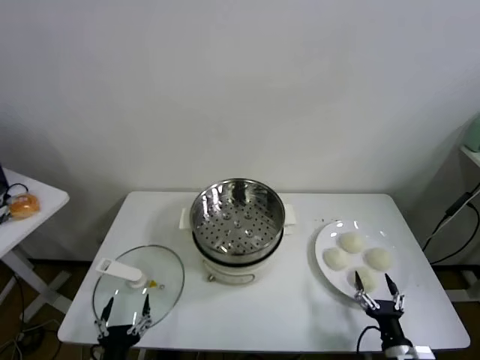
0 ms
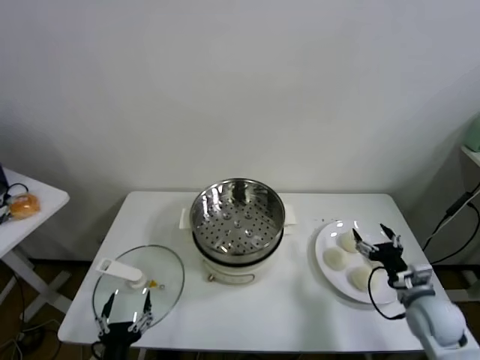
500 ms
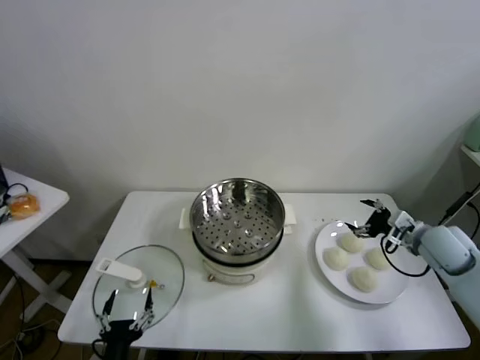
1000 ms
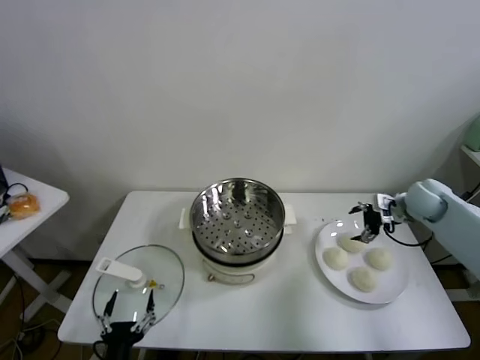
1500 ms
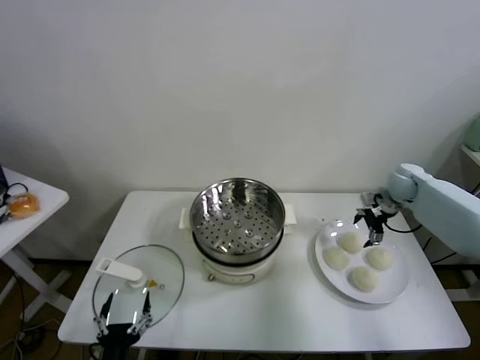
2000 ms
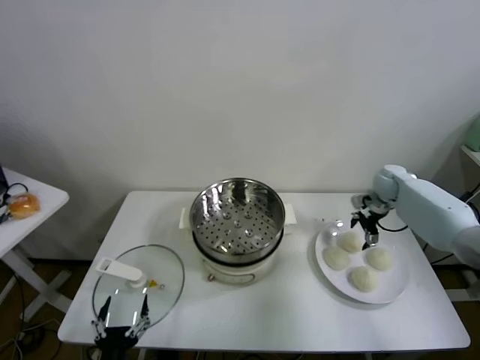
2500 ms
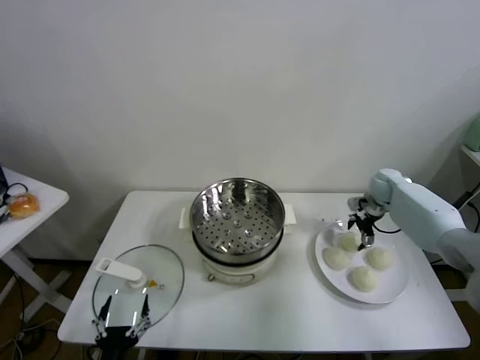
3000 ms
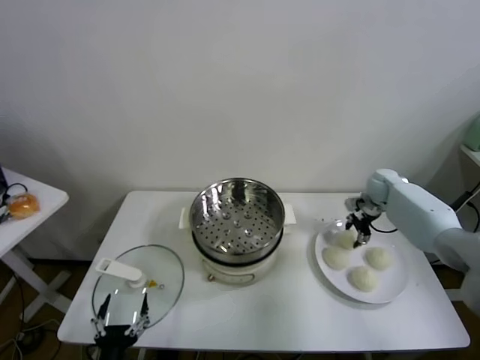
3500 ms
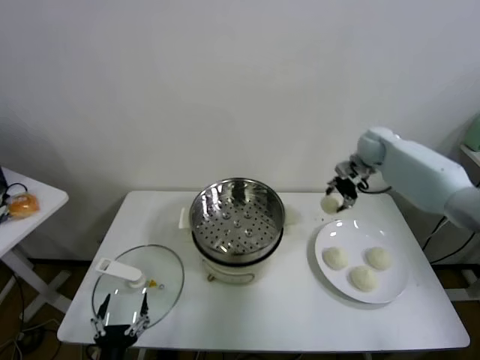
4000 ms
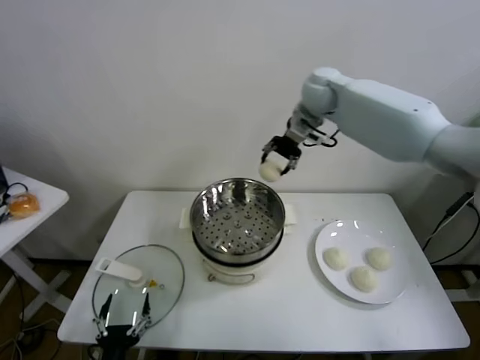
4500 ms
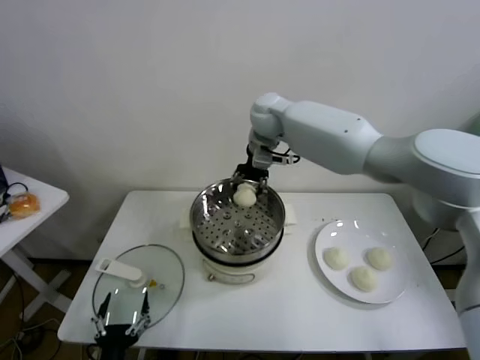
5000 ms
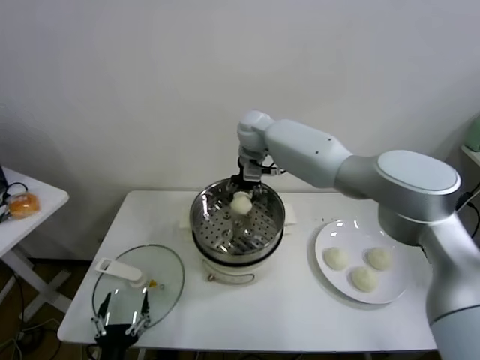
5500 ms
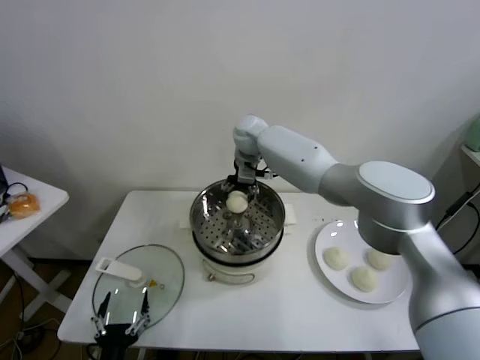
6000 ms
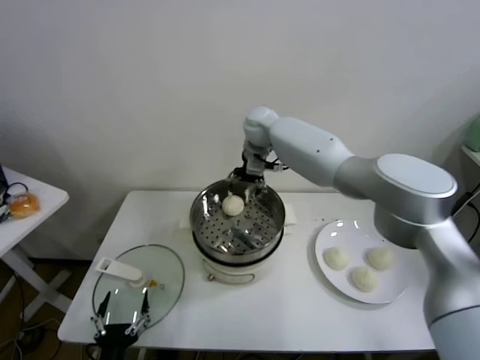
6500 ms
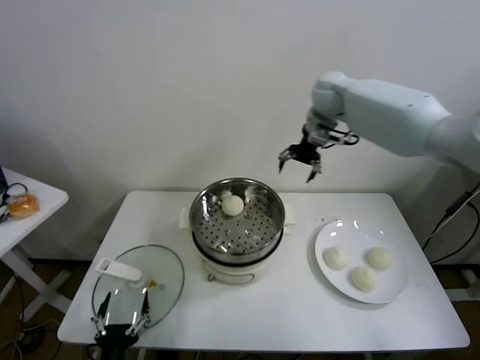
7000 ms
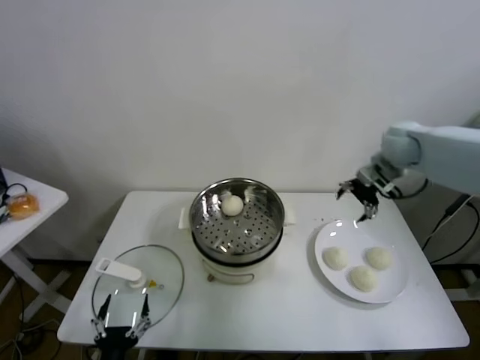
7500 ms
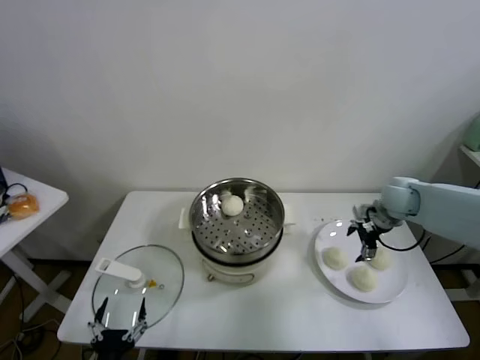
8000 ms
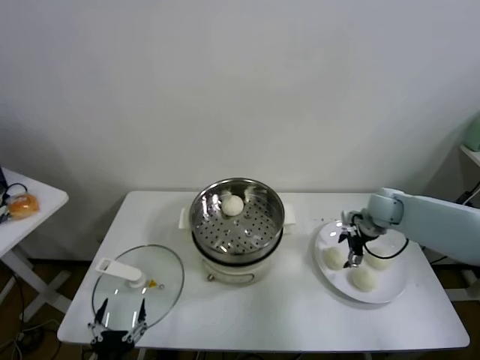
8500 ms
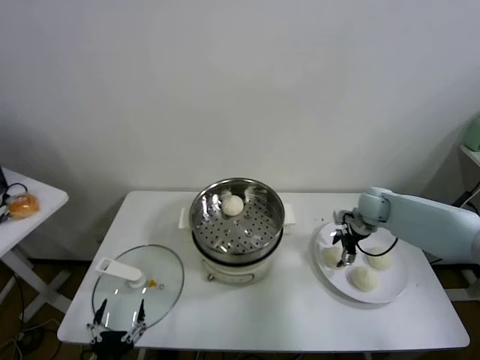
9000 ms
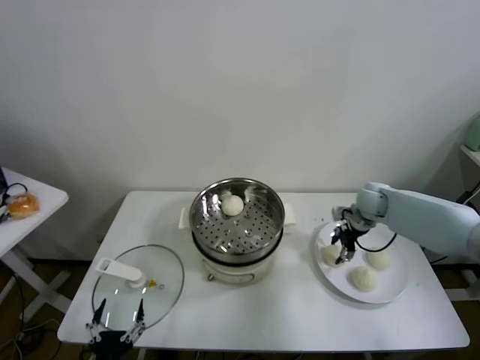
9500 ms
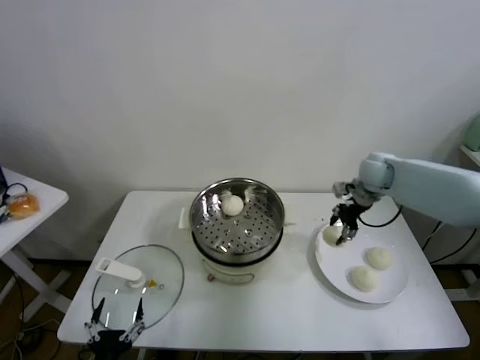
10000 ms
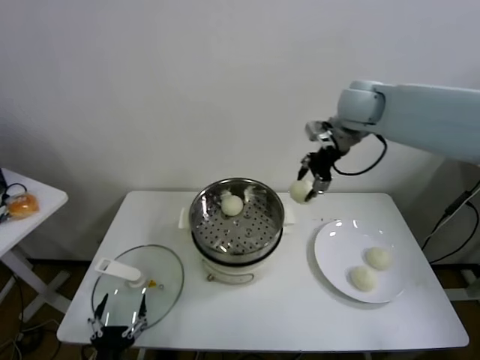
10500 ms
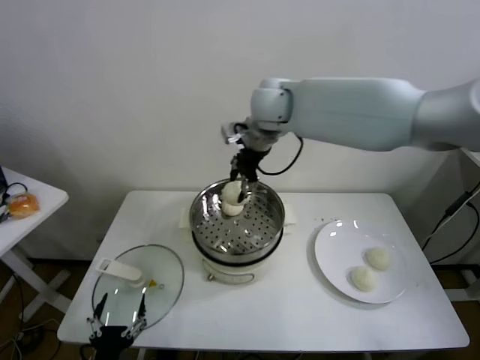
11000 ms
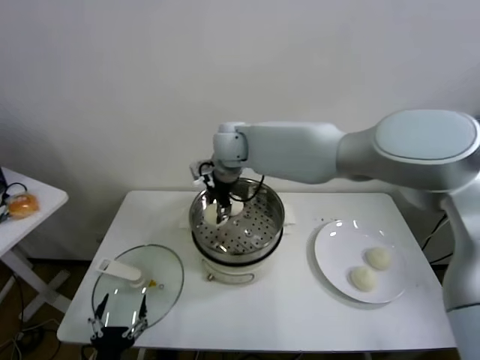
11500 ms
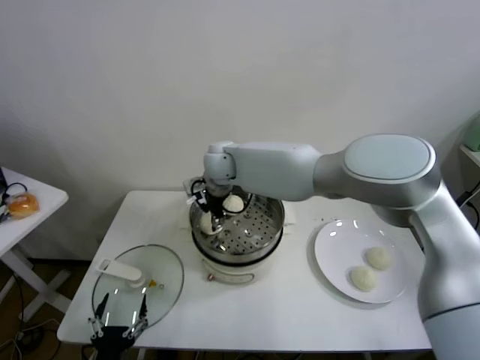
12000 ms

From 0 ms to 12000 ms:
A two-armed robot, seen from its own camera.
Task of the whole recording: take steamed baozi put them in steamer.
Step, from 0 ms to 3000 ms: Grasp the baozi in the plate with right gripper.
Step, from 3500 ms to 6000 ms: Place the baozi on the steamer with right gripper.
Step, from 6500 ms to 9000 ms: Grasp the baozi in the plate with right gripper.
From 2000 ms to 4000 ms: The right gripper moves upward, to the left and forward, roughly 15 cm, and closes up.
From 4000 ms to 6000 ms: The right gripper heads to the left, covering approximately 30 cm, and opens.
From 6000 ms to 8000 ms: The right gripper is displaced to the right by roughly 35 cm.
From 8000 ms to 10000 ms: The right gripper is displaced forward and upward by roughly 10 cm, and closes its fingers.
From 10000 ms to 12000 ms: The right gripper is displaced to the left by some 40 cm.

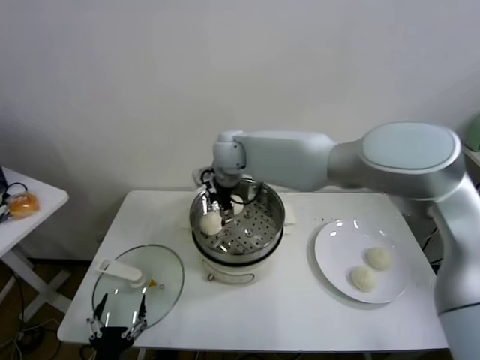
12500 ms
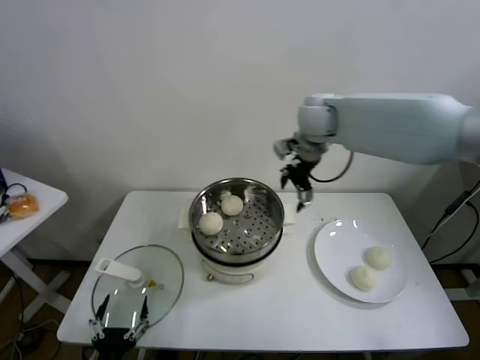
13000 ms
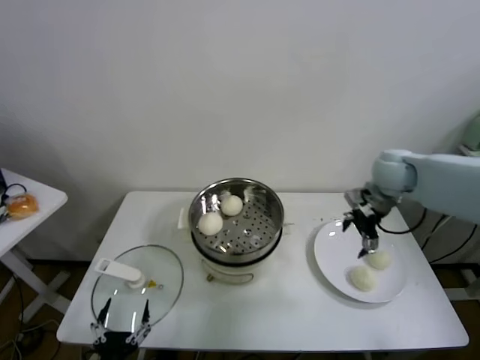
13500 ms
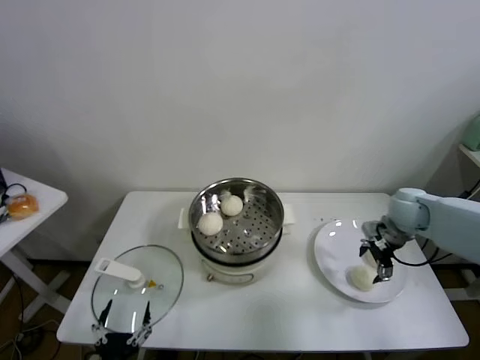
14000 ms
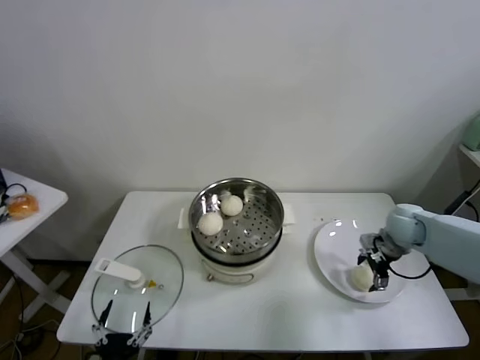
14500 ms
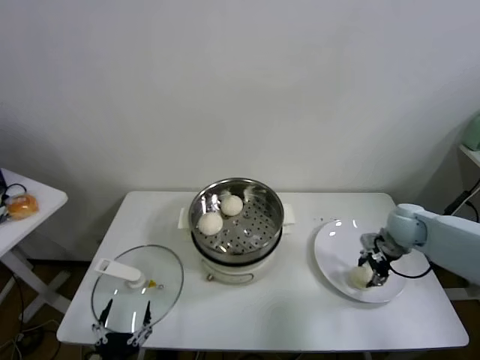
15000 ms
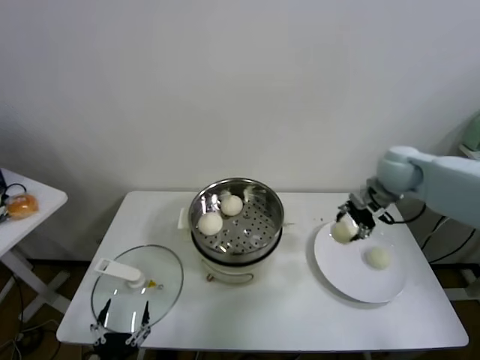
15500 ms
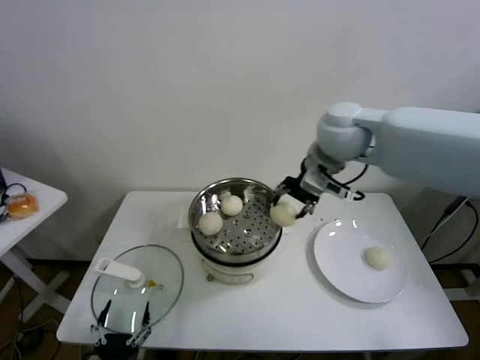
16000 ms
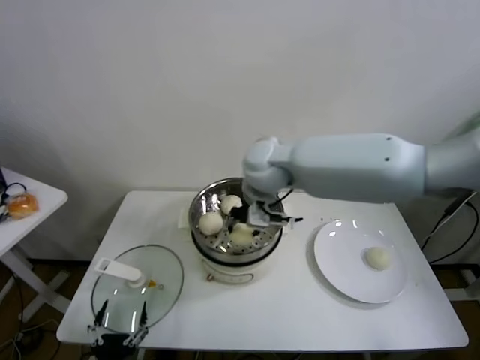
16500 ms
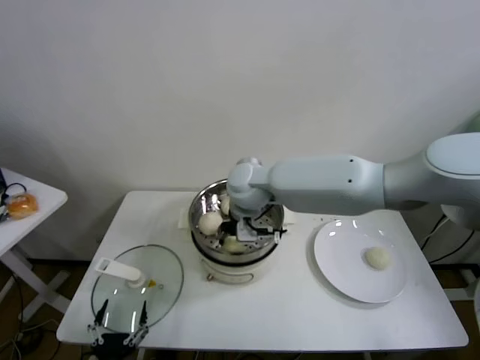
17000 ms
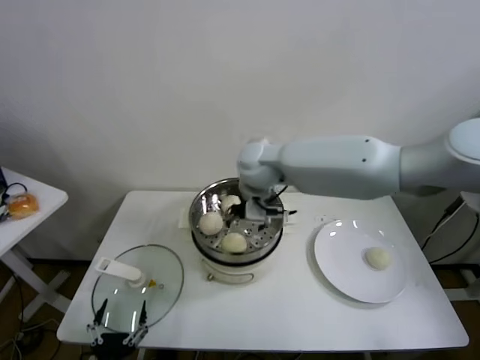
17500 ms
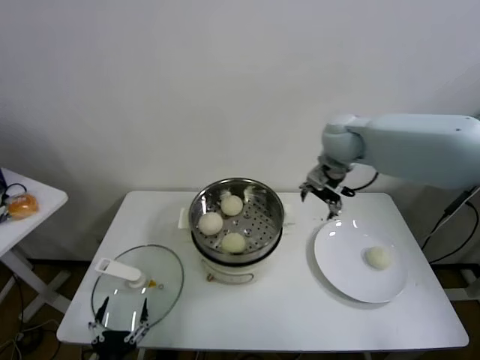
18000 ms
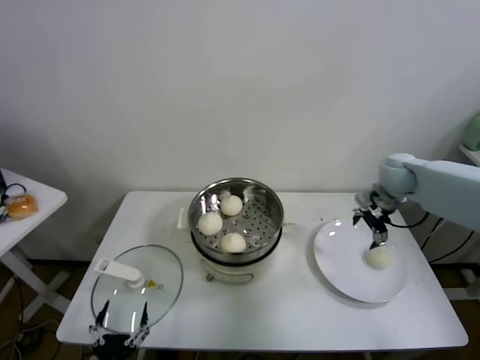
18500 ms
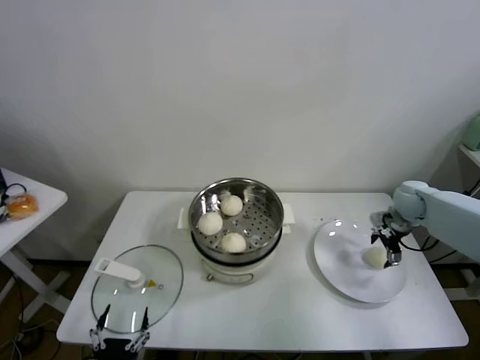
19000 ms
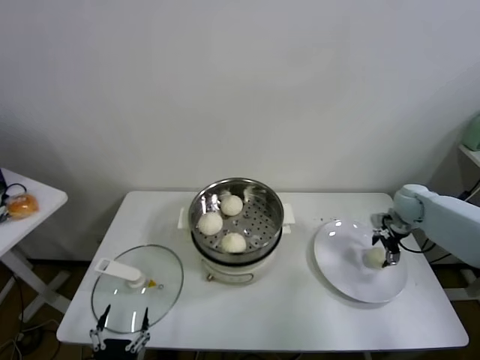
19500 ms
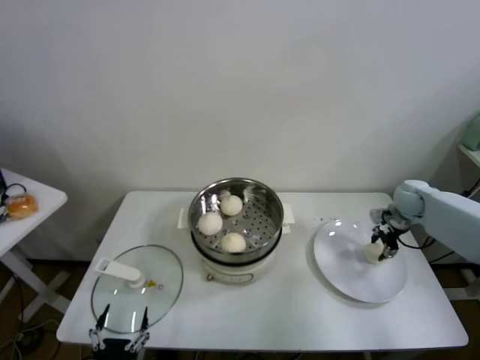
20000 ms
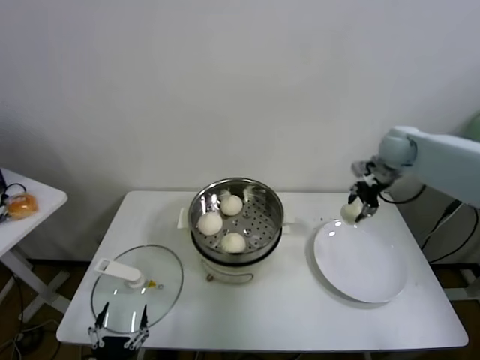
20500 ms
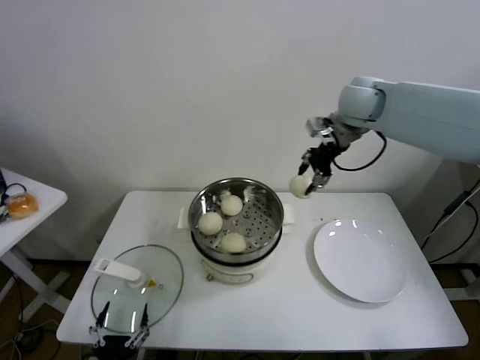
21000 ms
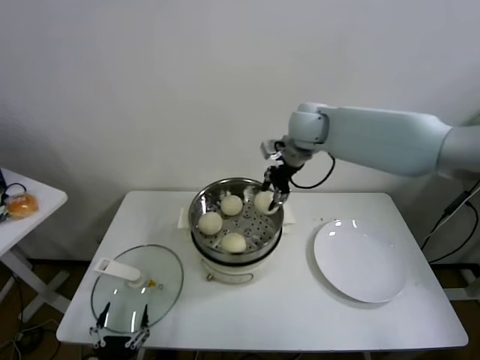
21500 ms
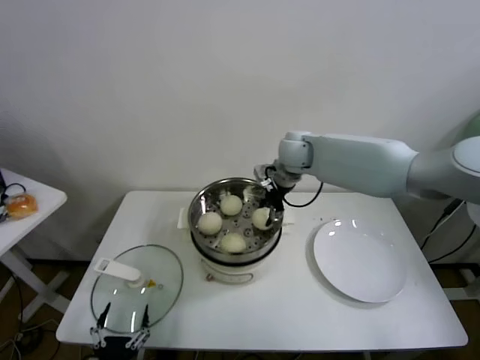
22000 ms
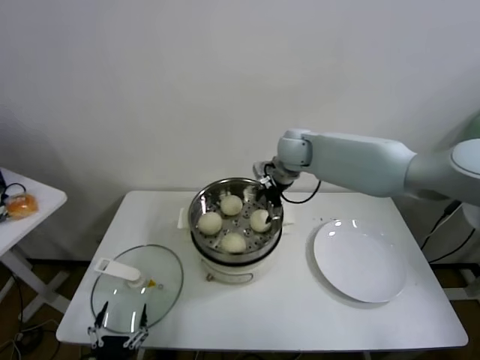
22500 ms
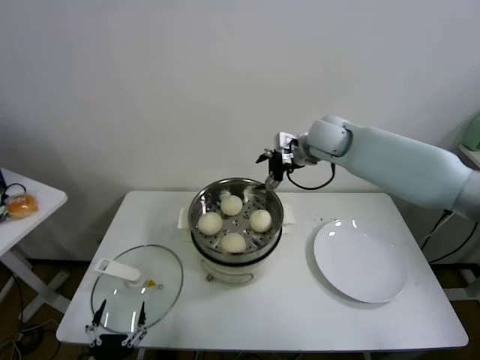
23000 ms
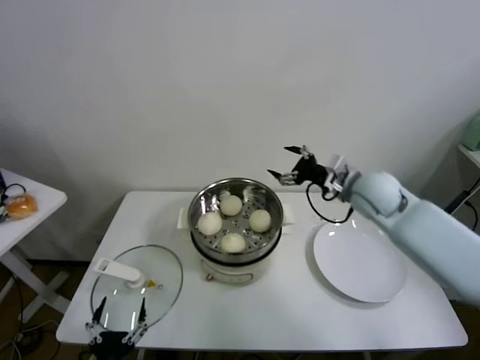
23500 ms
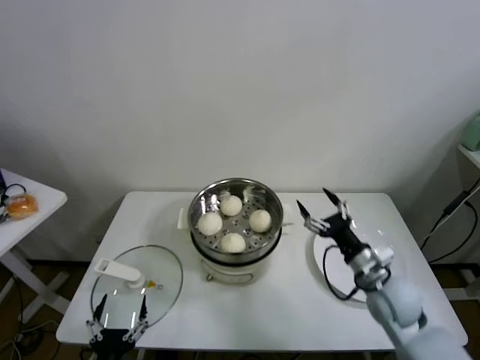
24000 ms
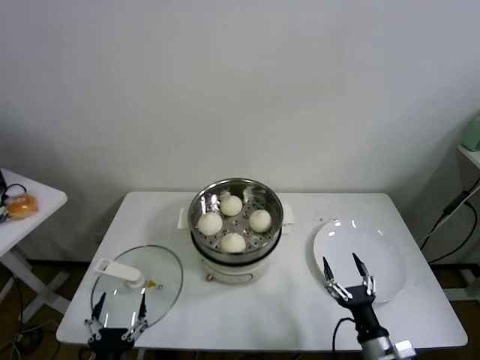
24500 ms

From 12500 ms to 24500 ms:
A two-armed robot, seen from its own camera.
Task of the whole recording: take steamed baozi put them in steamer.
Step, from 12500 ms to 14500 ms: Grasp the baozi in the plate with right gripper.
Step, from 15000 ms to 17000 ms: Place the baozi on the steamer with right gripper.
Step, from 17500 ms to 19500 ms: Grasp the baozi in the plate with right gripper.
Step, from 20000 ms to 22000 ms: Place the baozi on the steamer with right gripper.
From 12500 ms to 14500 ms: The right gripper goes some 40 cm to the right.
From 14500 ms to 16500 ms: The right gripper goes roughly 40 cm to the left and upward, and closes up.
From 16500 ms to 18500 ms: The right gripper heads to the right, covering some 35 cm, and opens up.
From 18500 ms to 20500 ms: The right gripper moves some 10 cm downward and comes back, and closes up.
From 20500 ms to 22500 ms: The right gripper heads to the left, covering about 25 cm, and opens.
From 22500 ms to 24500 ms: The right gripper travels backward, downward and to the right by some 50 cm.

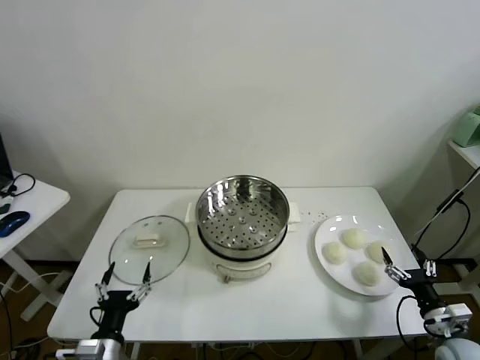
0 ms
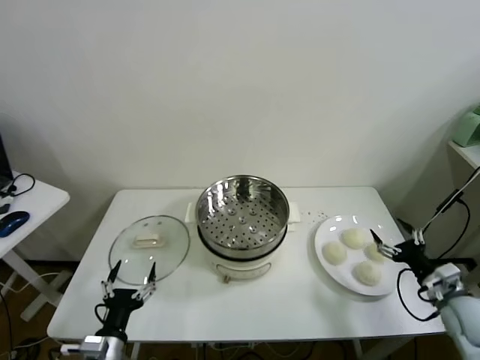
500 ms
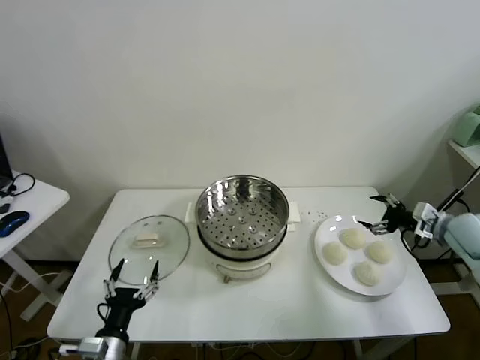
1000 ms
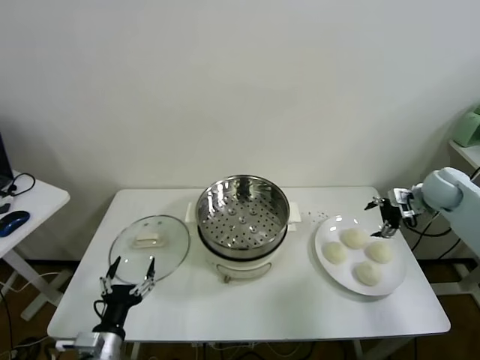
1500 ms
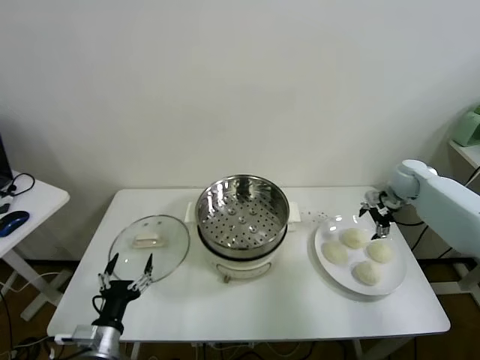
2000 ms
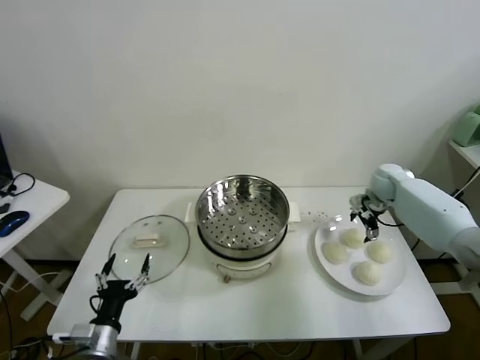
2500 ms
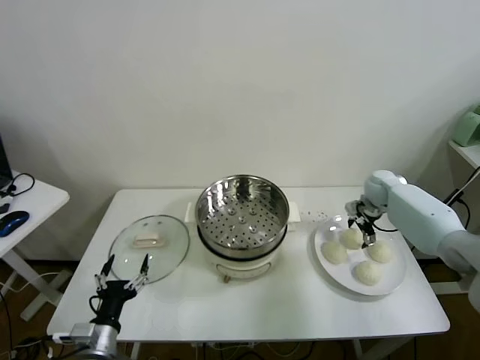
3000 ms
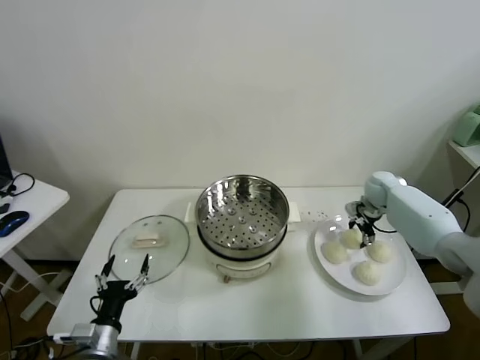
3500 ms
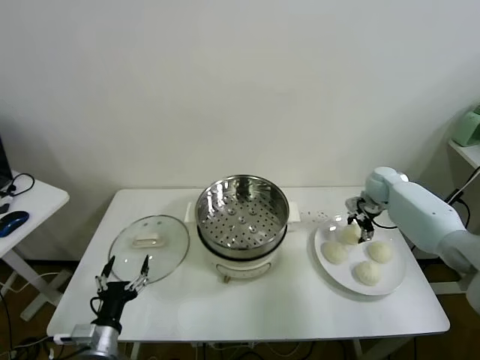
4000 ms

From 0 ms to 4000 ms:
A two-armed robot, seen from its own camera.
Task of the whole recording: take steamed baozi put them in steamer.
Step, from 0 ms to 3500 ms: Grasp the baozi in the plate with right gripper.
From 2000 ms to 4000 ms: The right gripper closes up.
